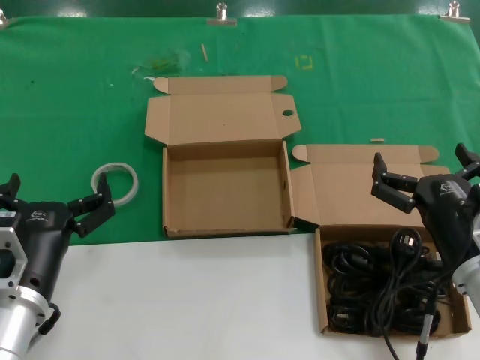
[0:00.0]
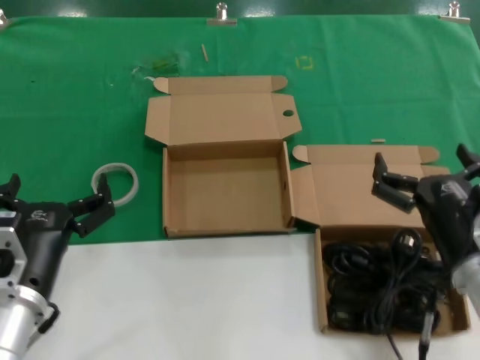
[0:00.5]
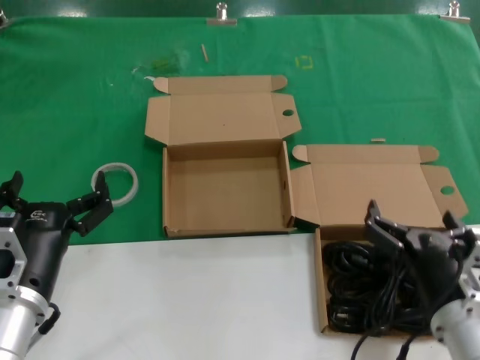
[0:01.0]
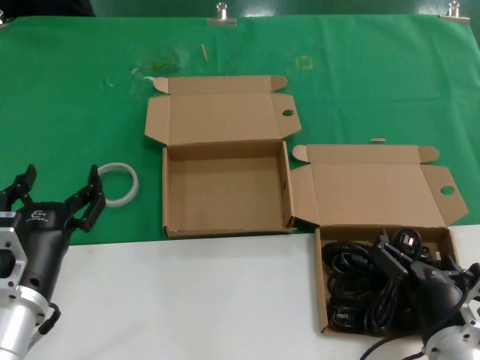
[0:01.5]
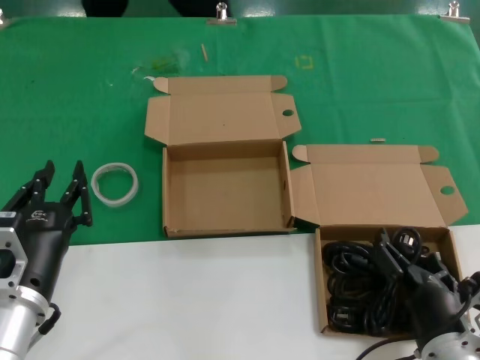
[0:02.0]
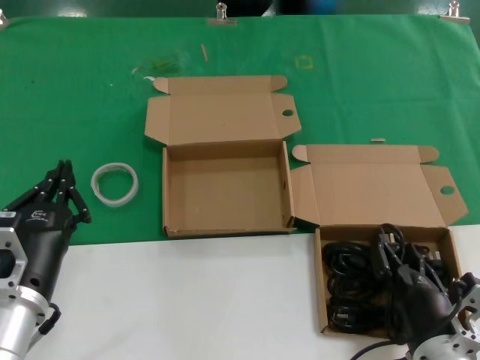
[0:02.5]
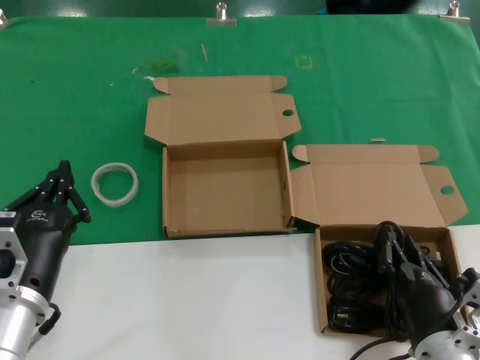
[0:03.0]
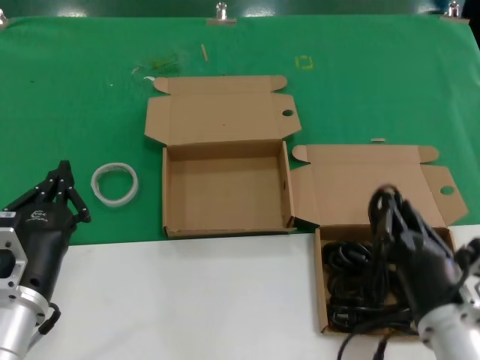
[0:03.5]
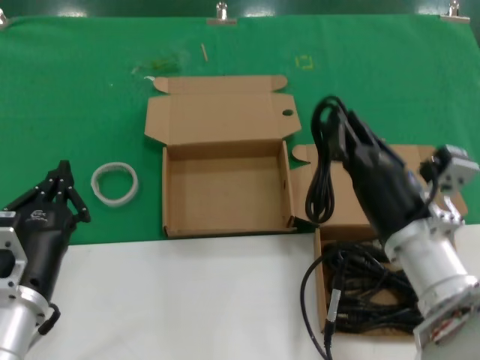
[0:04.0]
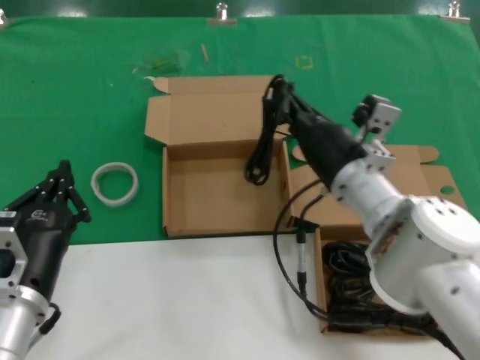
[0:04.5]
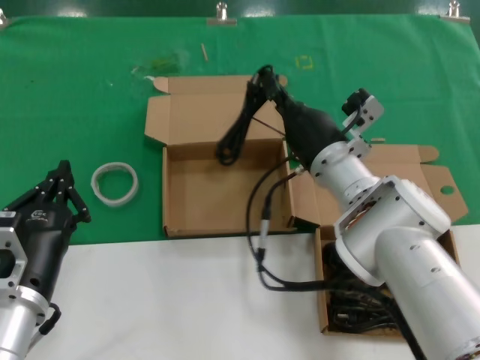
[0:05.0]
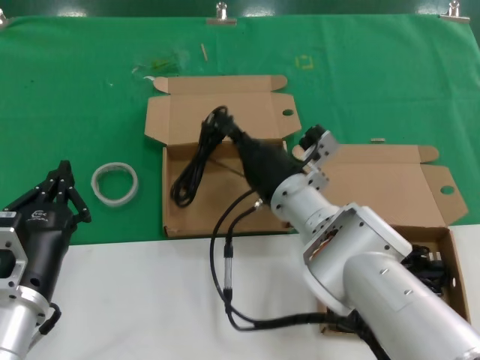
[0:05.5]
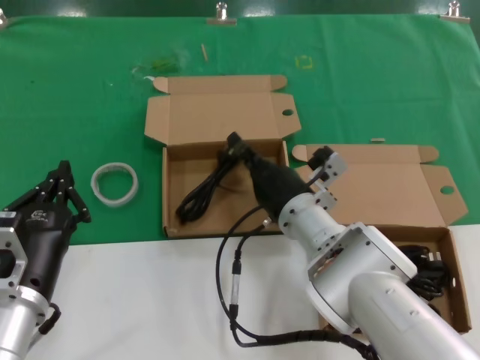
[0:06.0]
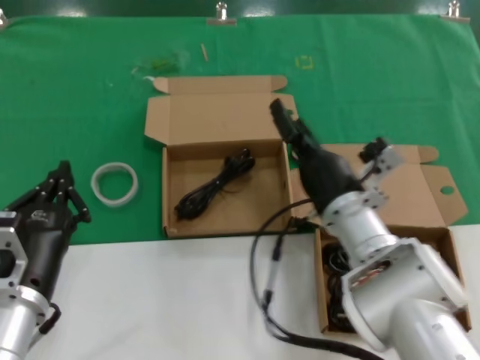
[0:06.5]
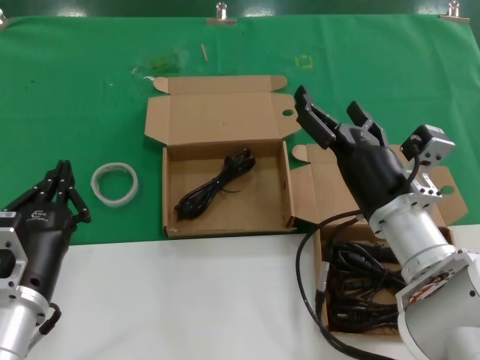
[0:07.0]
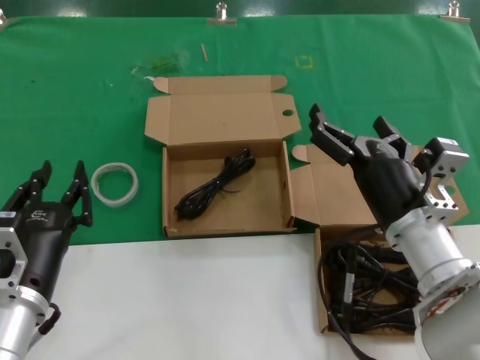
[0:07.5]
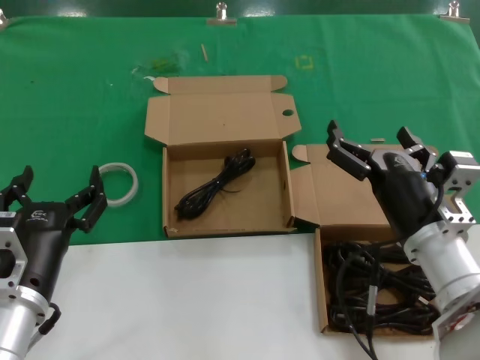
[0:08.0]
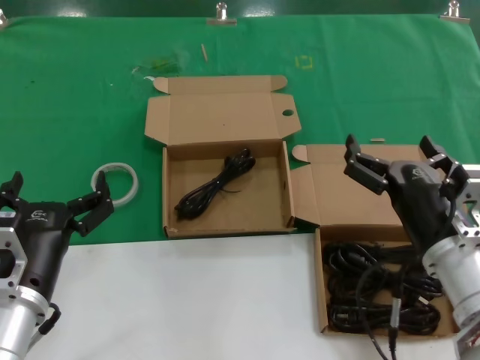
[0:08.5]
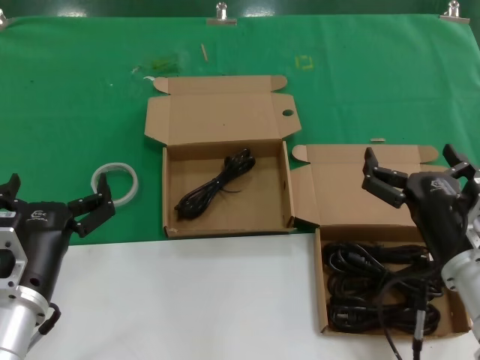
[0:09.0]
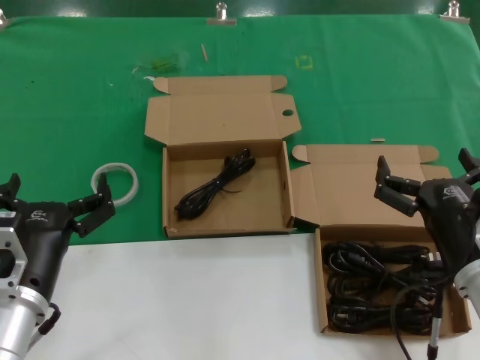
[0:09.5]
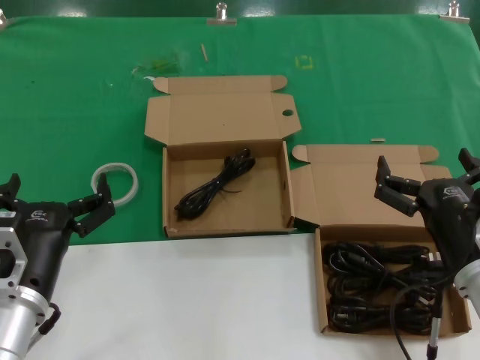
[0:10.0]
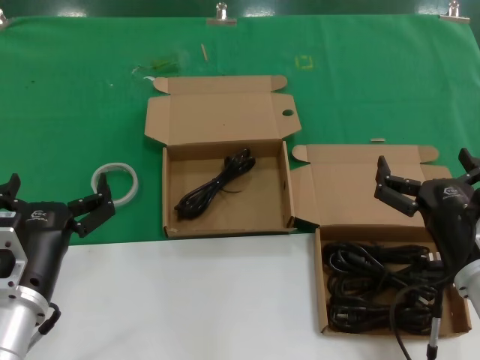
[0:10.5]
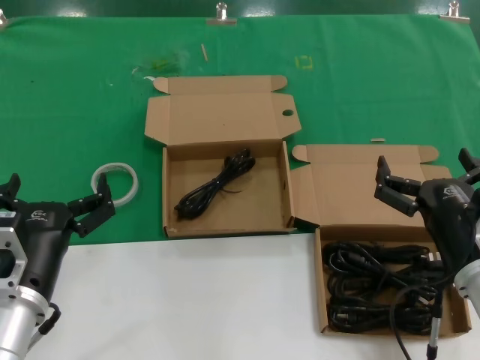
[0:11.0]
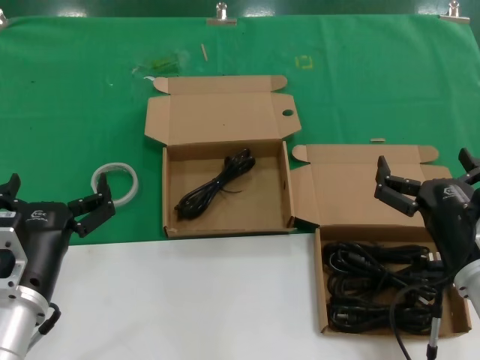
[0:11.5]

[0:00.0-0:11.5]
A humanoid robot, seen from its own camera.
Task of the whole recording: Pick up the power cord from the box containing it and place it in another box.
Step, 0:00.0 to 0:03.0: Grasp the data cable.
Step, 0:03.5 to 0:06.0: Place the data cable in the another box.
0:00.0 to 0:02.0: The right hand heads downward, covering approximately 10 cm.
0:02.0 to 0:04.0: The right hand travels upward and forward by about 15 cm.
0:04.0 to 0:06.0: The right hand heads forward, to the left and downward, covering some 15 cm.
0:06.0 to 0:07.5: The right hand is displaced to the right and backward by approximately 15 cm.
0:07.5 to 0:09.5: The right hand moves to the right and backward, approximately 10 cm.
0:09.5 to 0:11.5: Neither hand changes place.
